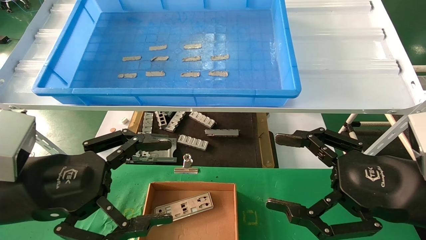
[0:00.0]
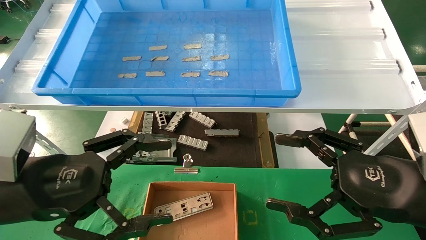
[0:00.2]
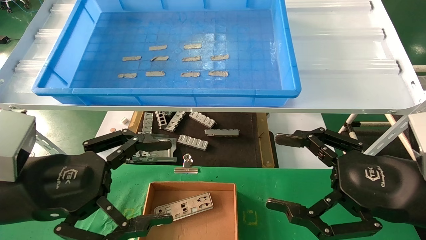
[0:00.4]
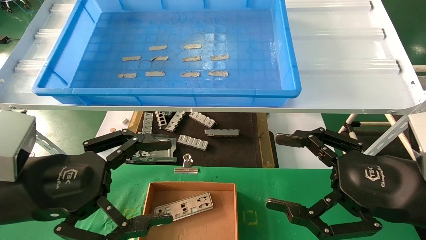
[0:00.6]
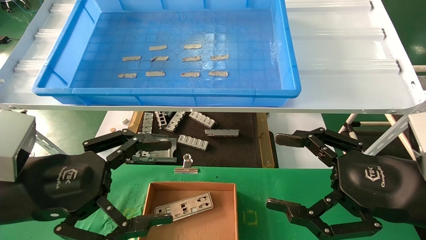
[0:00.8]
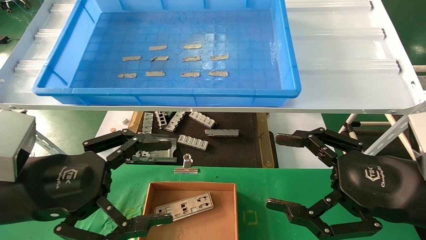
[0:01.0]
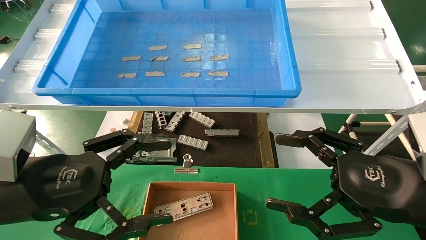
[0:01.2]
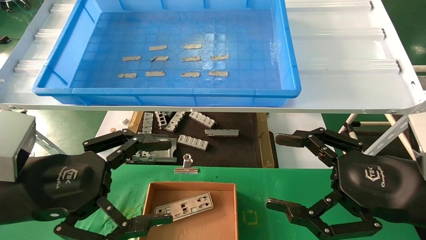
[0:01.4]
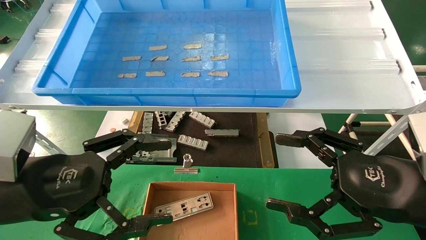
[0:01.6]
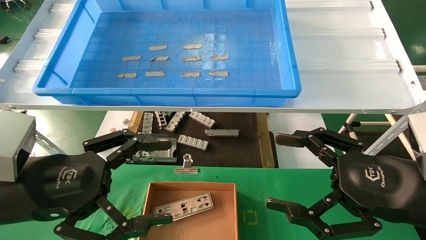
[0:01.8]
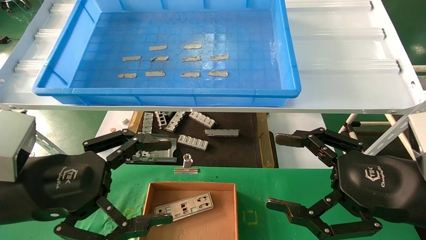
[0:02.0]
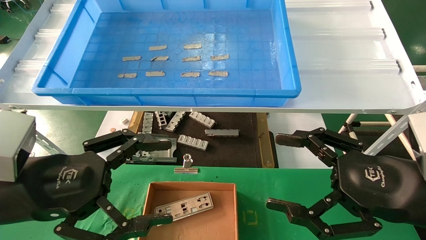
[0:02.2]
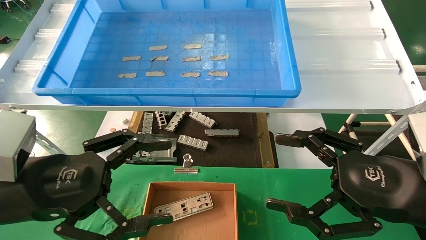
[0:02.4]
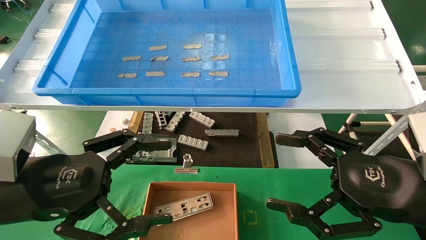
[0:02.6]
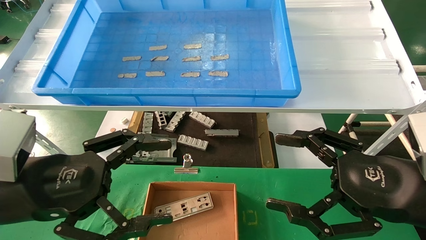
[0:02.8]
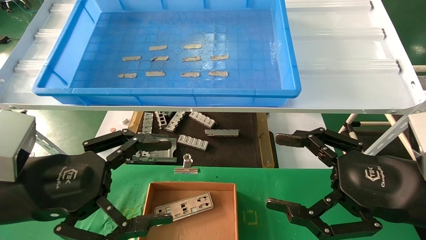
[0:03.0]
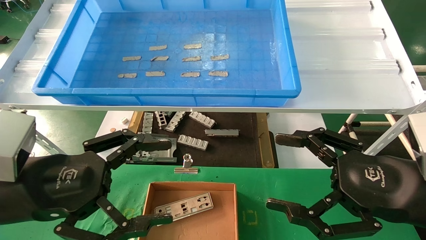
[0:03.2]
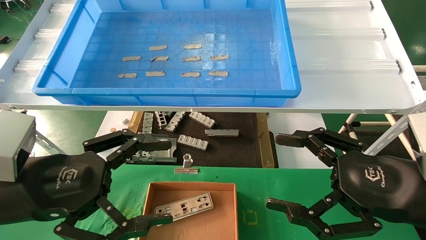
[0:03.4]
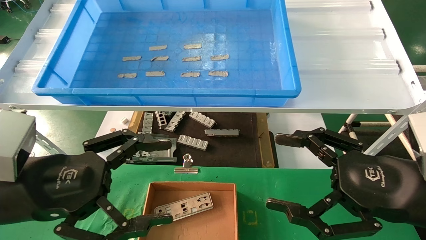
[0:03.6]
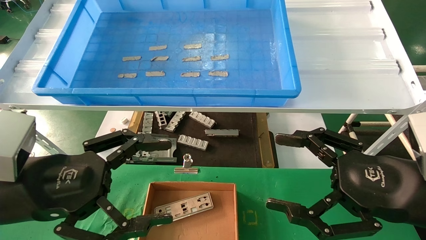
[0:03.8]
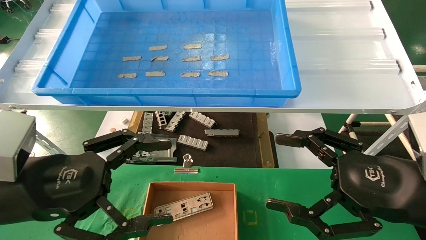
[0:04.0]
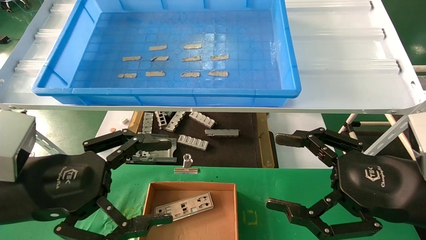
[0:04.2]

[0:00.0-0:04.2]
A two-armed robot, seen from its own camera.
Task of the whole recording: pick up the parts on the tray and put them in the cardboard box.
0:00.0 to 0:04.2: Both grippers stay put.
